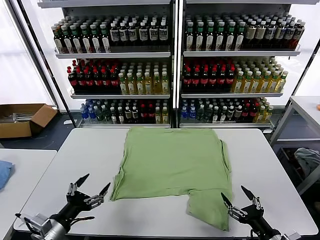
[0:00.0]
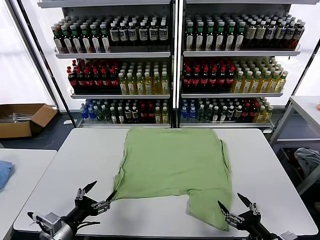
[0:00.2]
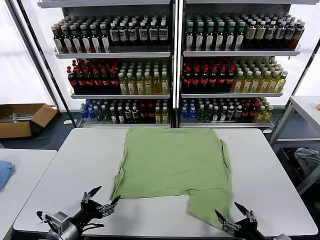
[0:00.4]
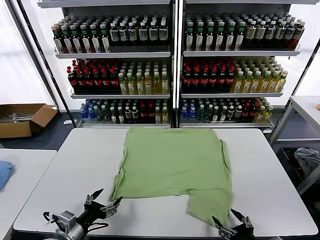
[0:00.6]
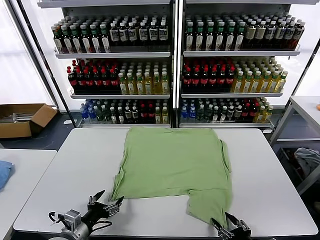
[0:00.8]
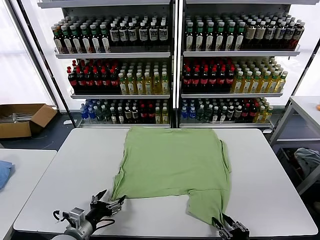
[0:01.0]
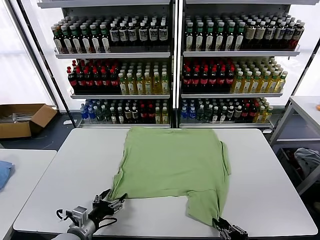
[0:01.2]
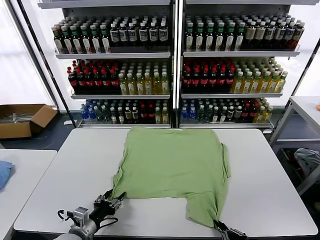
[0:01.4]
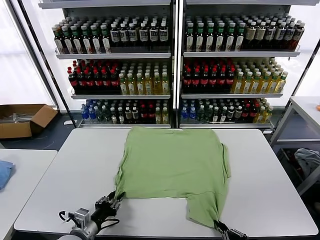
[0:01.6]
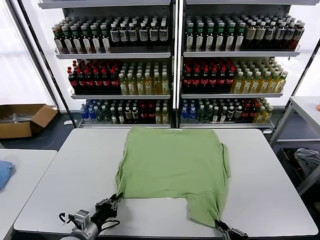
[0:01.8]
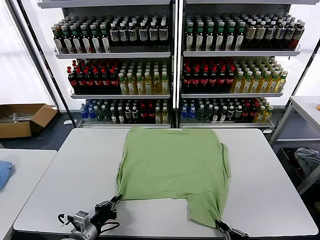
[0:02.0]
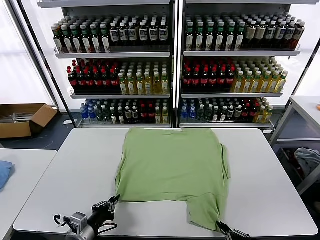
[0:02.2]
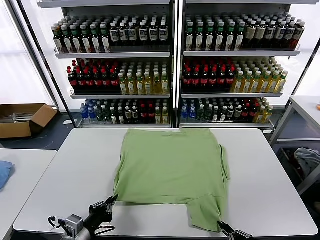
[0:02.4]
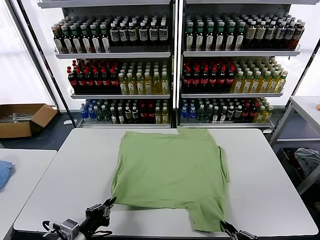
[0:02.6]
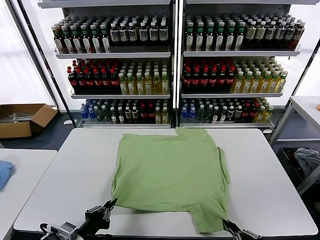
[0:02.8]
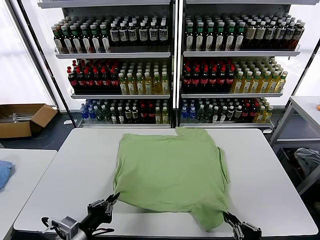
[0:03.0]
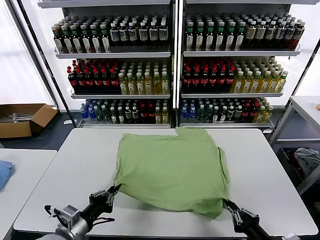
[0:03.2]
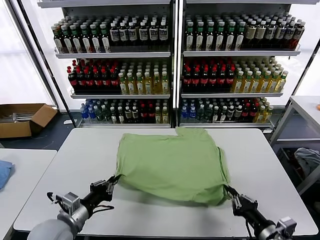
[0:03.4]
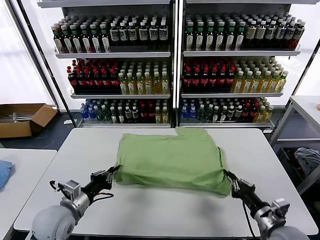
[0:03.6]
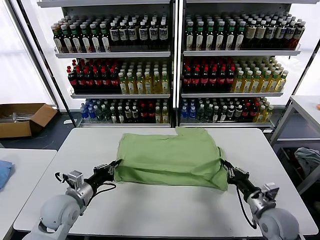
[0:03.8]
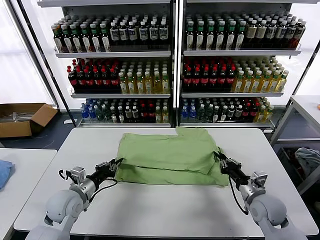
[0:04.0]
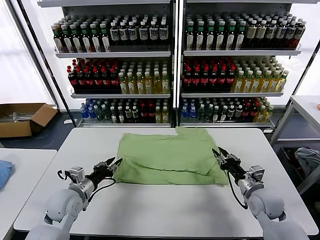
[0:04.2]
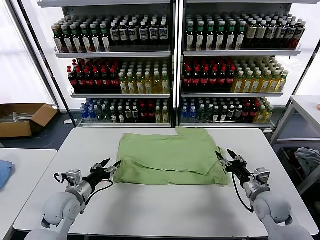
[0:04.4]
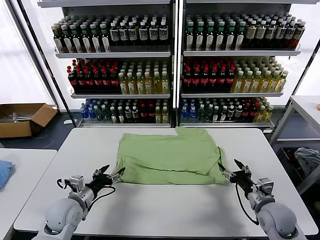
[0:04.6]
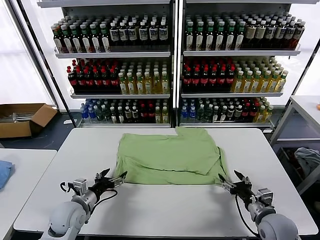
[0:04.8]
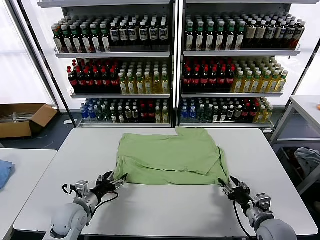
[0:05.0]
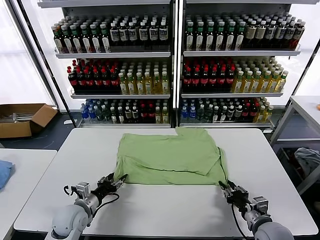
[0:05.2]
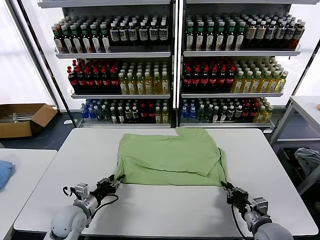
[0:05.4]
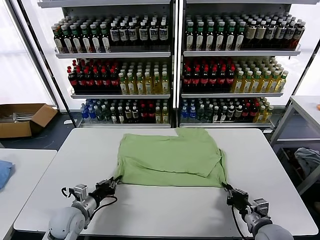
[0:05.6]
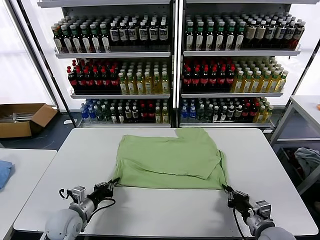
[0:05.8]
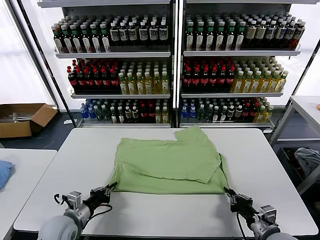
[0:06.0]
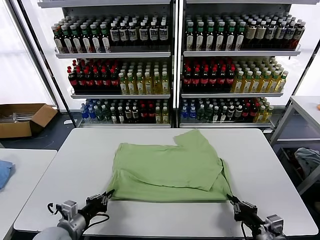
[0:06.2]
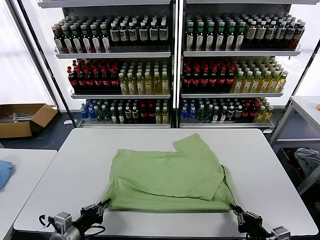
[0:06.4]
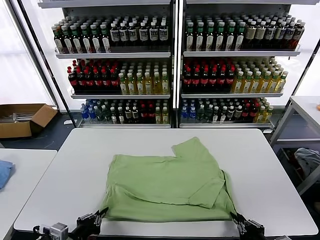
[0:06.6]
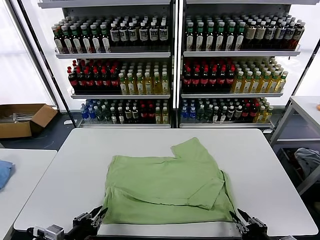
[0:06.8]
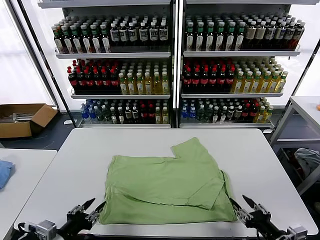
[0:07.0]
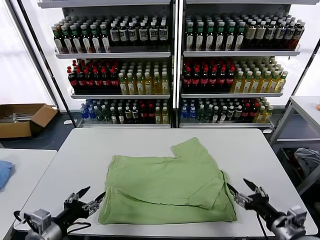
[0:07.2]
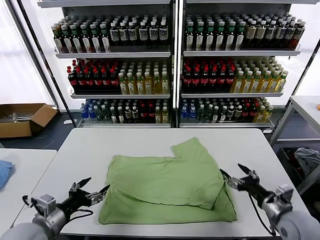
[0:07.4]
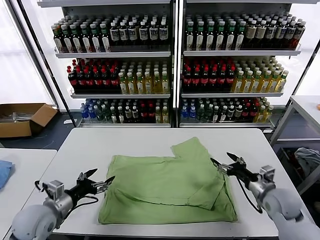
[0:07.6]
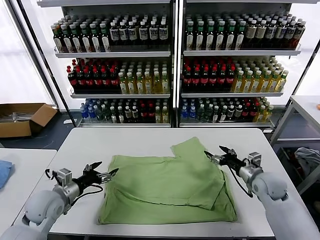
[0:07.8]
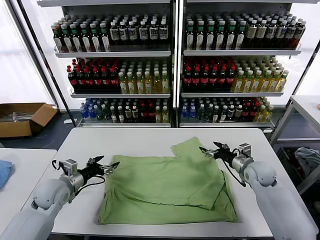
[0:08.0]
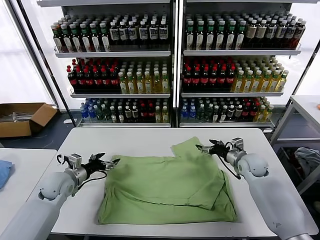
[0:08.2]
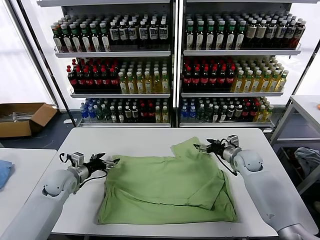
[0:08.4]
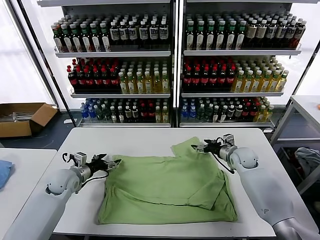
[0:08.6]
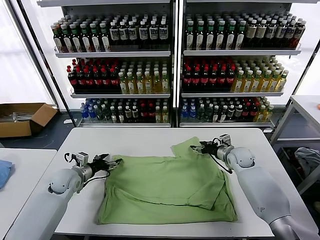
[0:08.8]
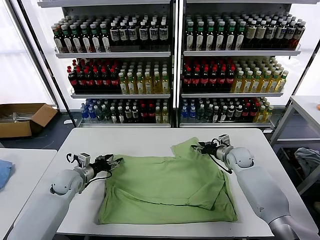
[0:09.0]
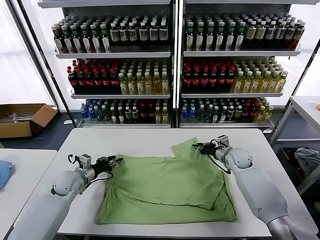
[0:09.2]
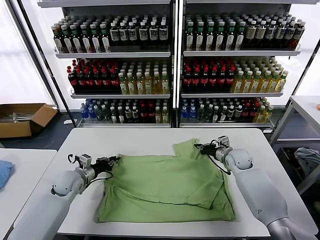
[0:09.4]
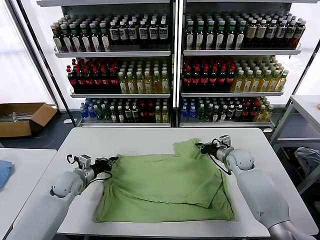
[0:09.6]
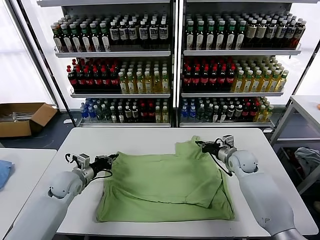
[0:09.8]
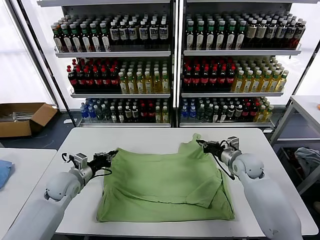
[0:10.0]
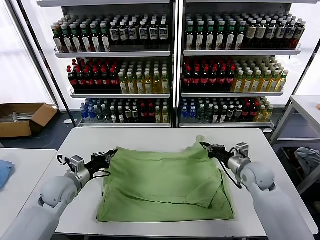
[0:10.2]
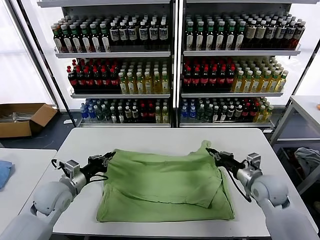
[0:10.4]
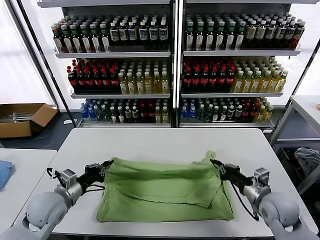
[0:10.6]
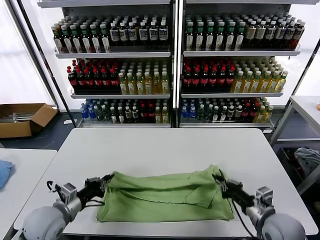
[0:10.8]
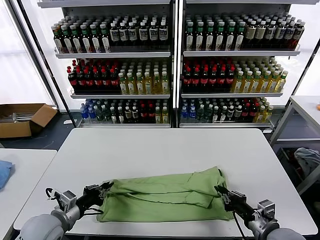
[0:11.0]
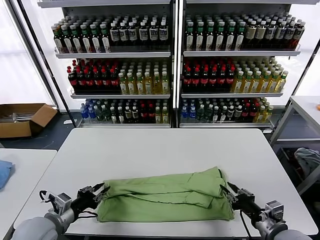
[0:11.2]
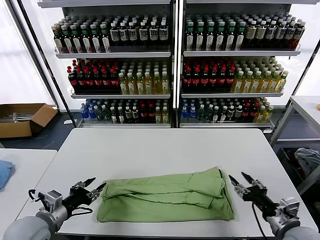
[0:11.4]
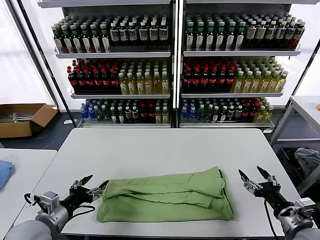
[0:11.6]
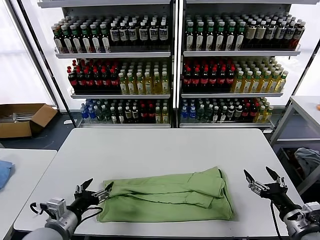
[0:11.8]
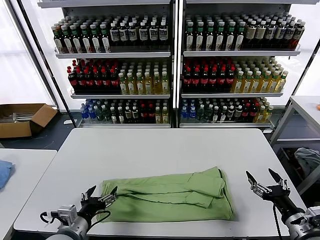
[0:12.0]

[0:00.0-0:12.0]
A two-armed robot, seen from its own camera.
Task of the whole recording: fold and organize the clothes.
Step, 0:00.0 to 0:01.8: use both grippers simultaneously to clamp the lower edge of the clothing fabric.
Step, 0:02.0 to 0:04.4: use both grippers to drag the lower edge of the fabric forward and fold it over the upper edge.
Step, 0:04.6 to 0:06.8: Drag the clothes downward with both gripper.
Step, 0:07.0 to 0:09.4: use both grippers simultaneously to clamp the upper edge of the clothing fabric.
Step, 0:09.8 to 0:11.2: use both grippers to drag the upper edge of the fabric backward and fold it over the lower edge.
0:01.6 to 0:03.0: The left gripper heads upward, covering roughly 10 cm, while the right gripper travels upward by about 5 cm.
0:03.0 to 0:04.4: The two grippers go approximately 15 cm forward. The left gripper opens its fingers. Meanwhile the right gripper opens.
0:04.4 to 0:06.0: The right gripper moves backward, roughly 10 cm, and closes up. Meanwhile the left gripper shifts about 5 cm backward, and closes its fingers.
0:06.0 to 0:07.6: The right gripper heads forward, covering approximately 20 cm, and opens up; the left gripper travels upward by approximately 5 cm, goes backward and returns, about 10 cm each way, and opens.
0:07.6 to 0:09.0: The left gripper moves forward and downward, some 15 cm, and closes its fingers. The right gripper moves forward, approximately 15 cm, and closes up.
0:09.0 to 0:10.4: The left gripper goes about 10 cm backward and upward, and closes up. Meanwhile the right gripper is displaced backward by approximately 20 cm, and closes its fingers.
0:10.4 to 0:12.0: The left gripper shifts about 15 cm backward and to the right, and opens. Meanwhile the right gripper shifts approximately 15 cm backward, and opens its fingers.

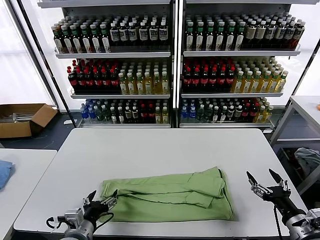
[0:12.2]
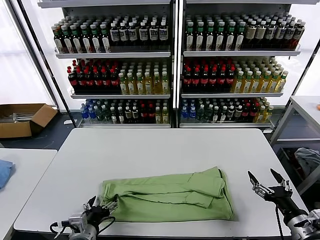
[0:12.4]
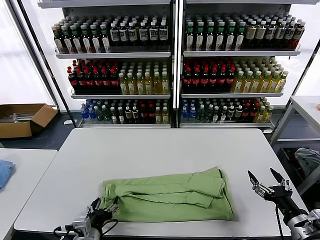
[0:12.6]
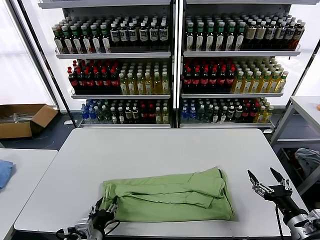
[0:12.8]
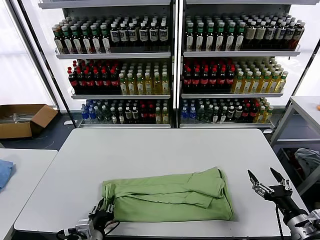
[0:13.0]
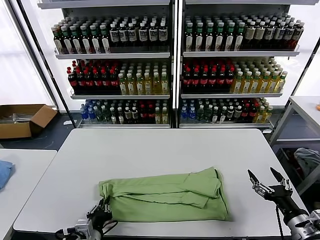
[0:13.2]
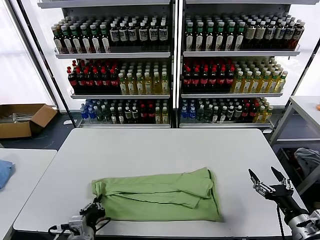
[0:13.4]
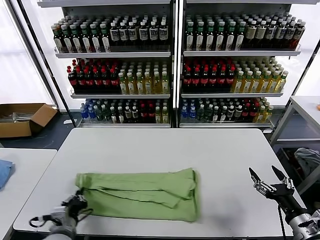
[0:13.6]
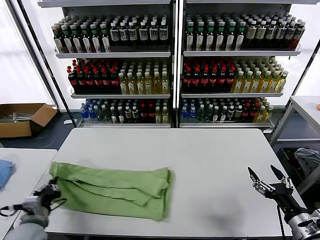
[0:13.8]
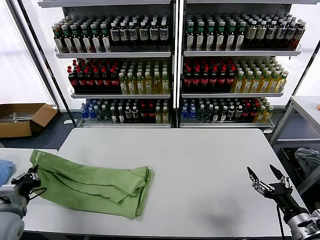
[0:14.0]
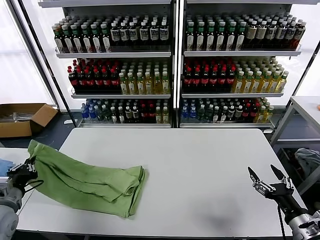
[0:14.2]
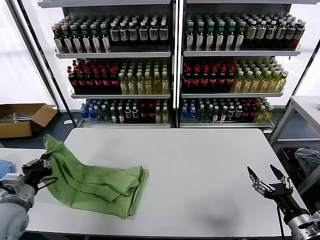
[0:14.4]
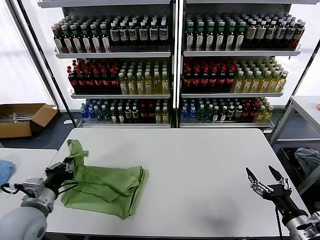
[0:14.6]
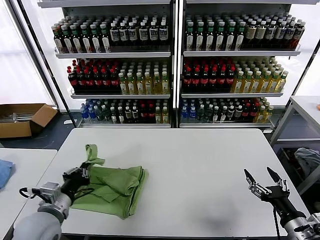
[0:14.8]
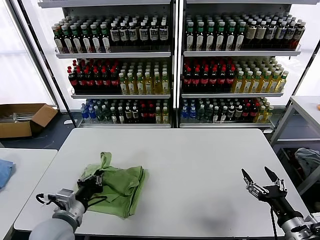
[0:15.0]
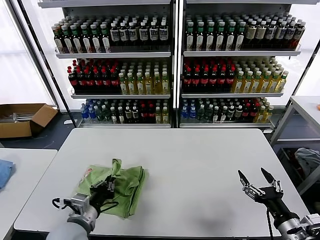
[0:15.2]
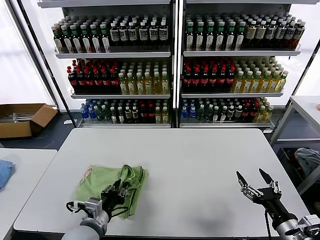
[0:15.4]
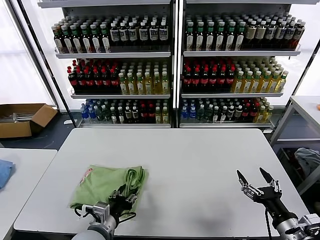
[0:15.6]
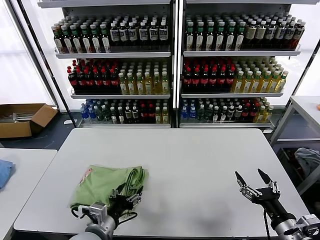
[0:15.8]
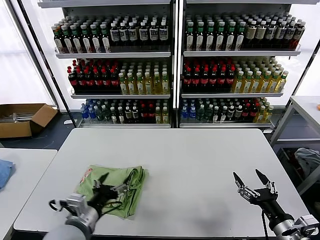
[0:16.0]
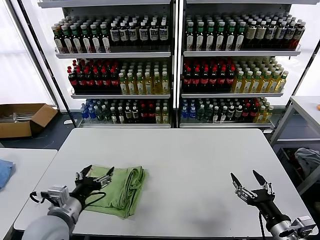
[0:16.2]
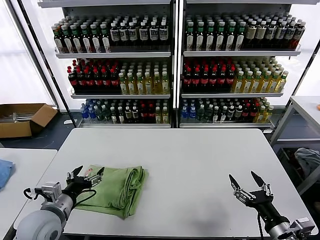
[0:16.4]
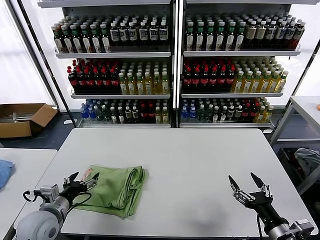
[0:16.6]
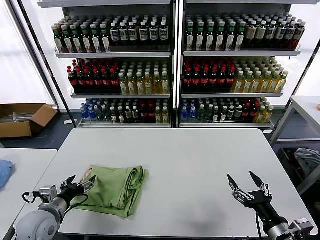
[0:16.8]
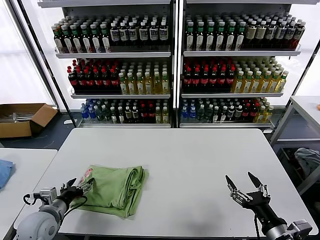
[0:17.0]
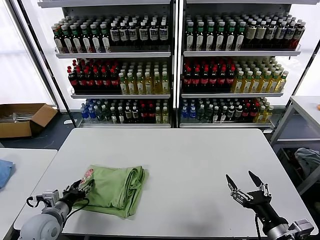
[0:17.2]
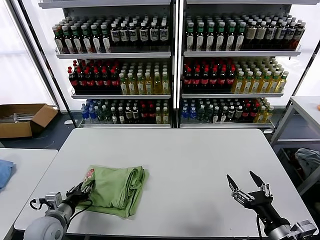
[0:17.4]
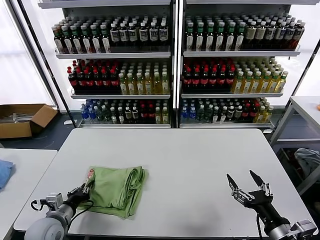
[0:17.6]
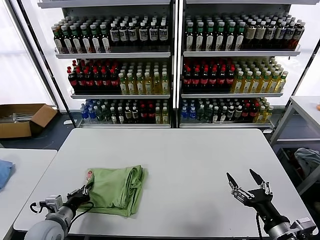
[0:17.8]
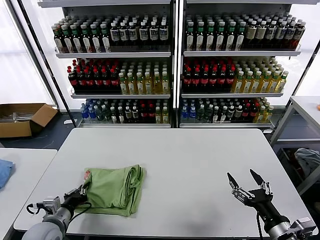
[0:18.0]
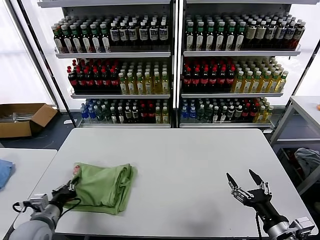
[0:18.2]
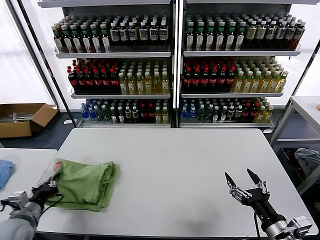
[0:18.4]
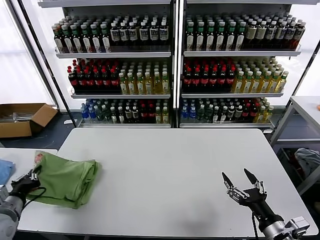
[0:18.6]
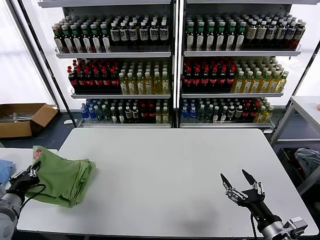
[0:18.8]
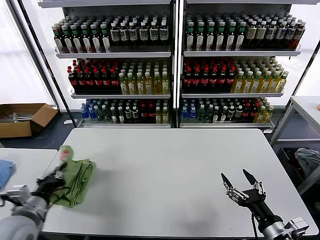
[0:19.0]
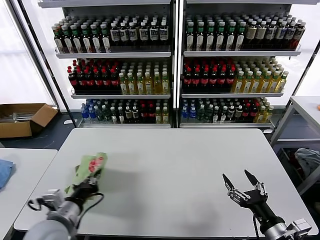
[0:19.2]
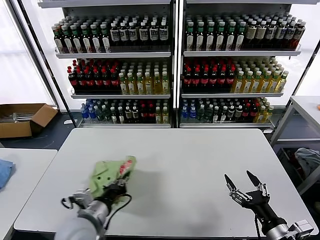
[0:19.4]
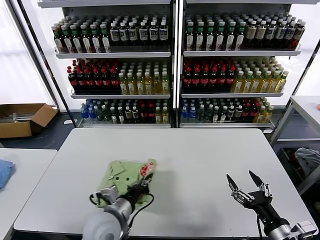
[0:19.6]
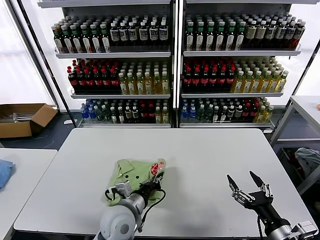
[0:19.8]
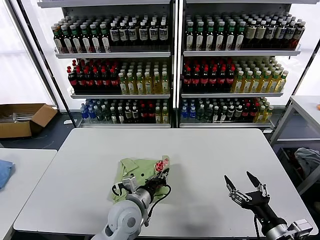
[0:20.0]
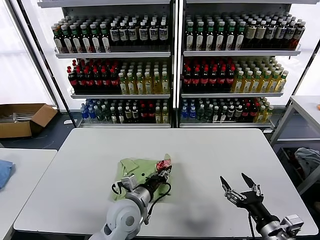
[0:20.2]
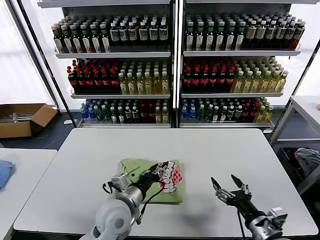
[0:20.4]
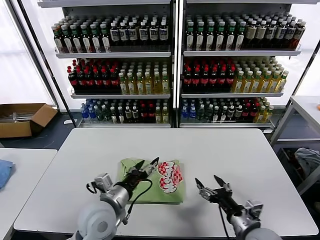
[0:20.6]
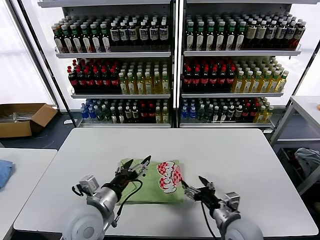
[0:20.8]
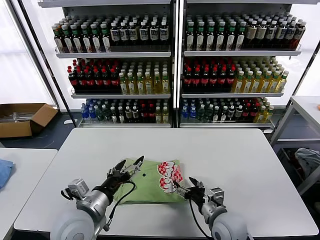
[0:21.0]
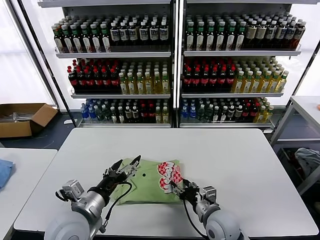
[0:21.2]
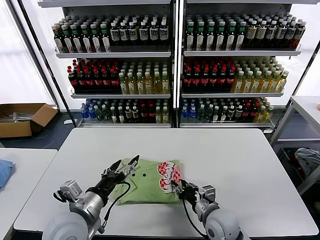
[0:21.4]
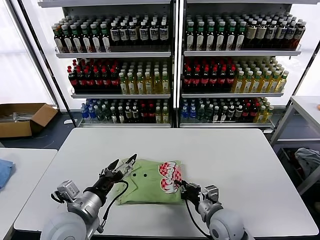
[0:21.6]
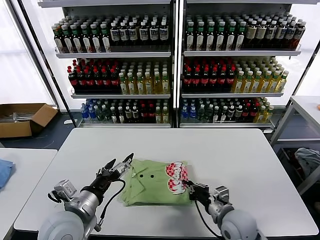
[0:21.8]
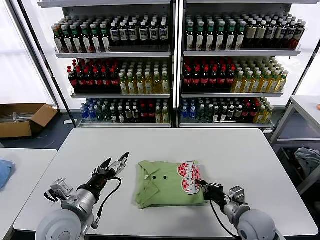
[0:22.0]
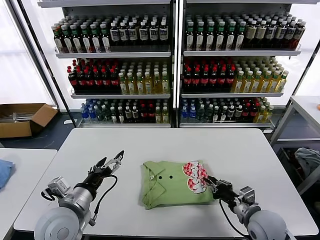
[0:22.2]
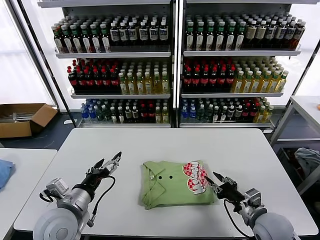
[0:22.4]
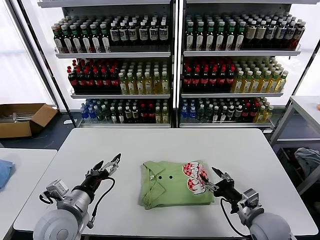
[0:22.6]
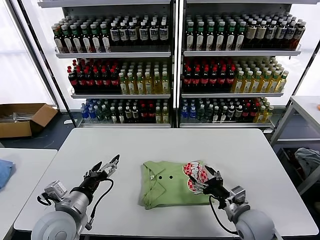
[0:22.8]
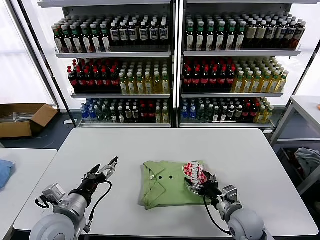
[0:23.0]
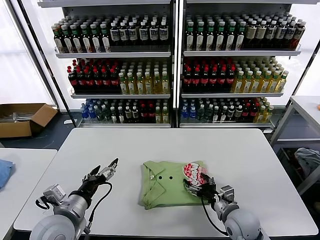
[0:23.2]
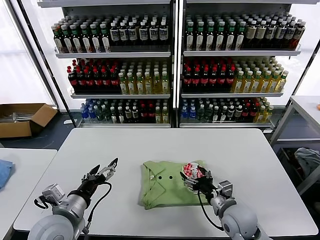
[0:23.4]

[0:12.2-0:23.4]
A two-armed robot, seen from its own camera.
Task of the whole recording: fold and organize the clothes.
Step, 0:12.2 to 0:13.2: use the left gripper to clamp the left edge of the fabric.
Step, 0:13.4 to 0:15.8: use the left gripper to drag the left edge of the fabric to the left and folds it over the right edge.
Step, 0:16.0 to 0:20.2: Flip the folded clothes over with left gripper.
0:12.2 to 0:13.8: The left gripper moves to the left, approximately 15 cm, and closes up.
0:13.8 to 0:15.4: The left gripper goes about 15 cm to the right.
0:15.4 to 0:17.0: The left gripper travels to the left by some 15 cm, and opens up.
0:17.0 to 0:18.6: The left gripper moves to the left and upward, approximately 10 cm, and closes up.
0:18.6 to 0:20.2: The left gripper travels to the right by some 35 cm.
0:20.2 to 0:21.8: The left gripper moves to the left, upward and backward, about 15 cm, and opens up. The right gripper travels forward, to the left and downward by some 15 cm, and closes its fingers.
0:21.8 to 0:23.4: The right gripper reaches approximately 10 cm to the right, then returns, and opens.
